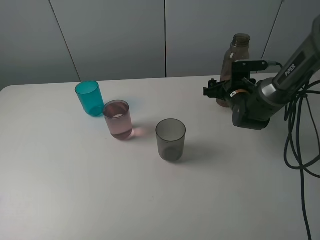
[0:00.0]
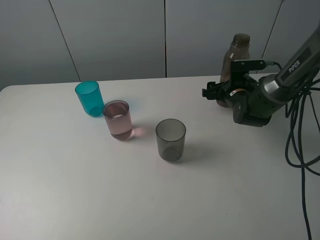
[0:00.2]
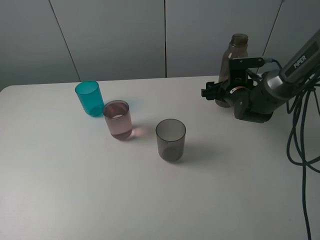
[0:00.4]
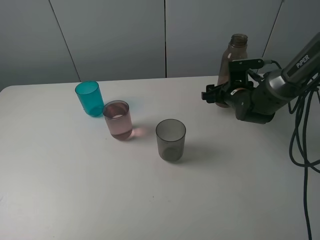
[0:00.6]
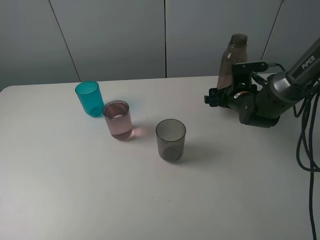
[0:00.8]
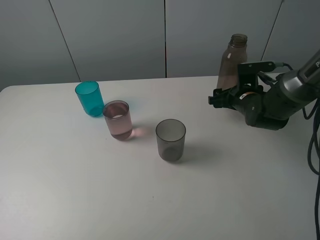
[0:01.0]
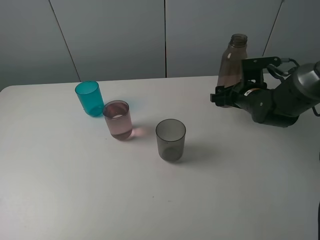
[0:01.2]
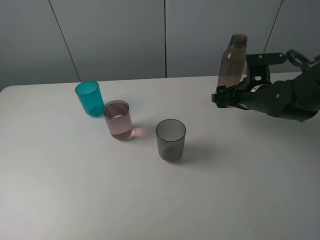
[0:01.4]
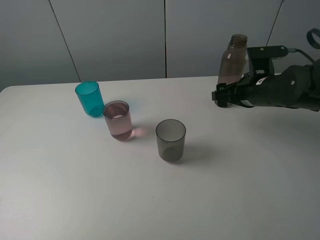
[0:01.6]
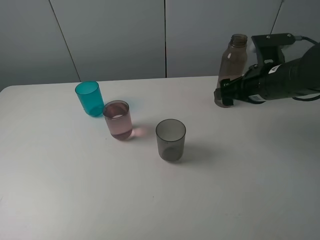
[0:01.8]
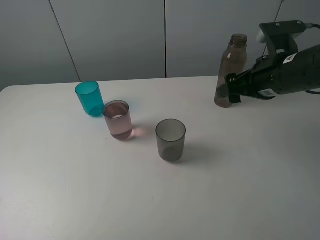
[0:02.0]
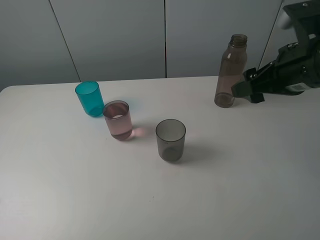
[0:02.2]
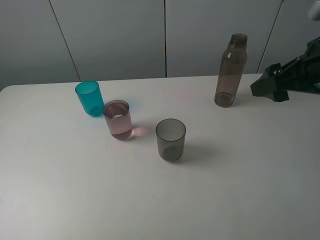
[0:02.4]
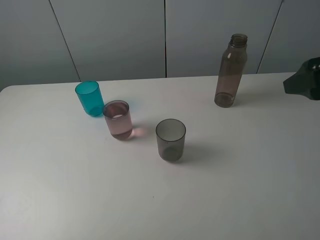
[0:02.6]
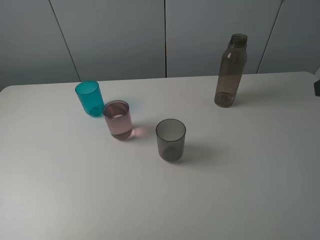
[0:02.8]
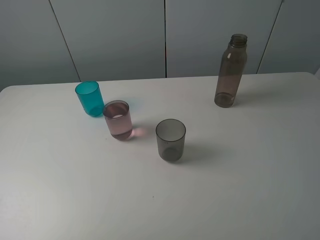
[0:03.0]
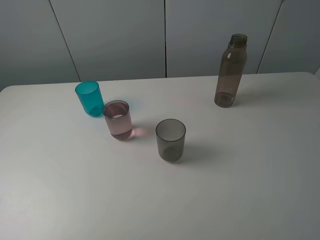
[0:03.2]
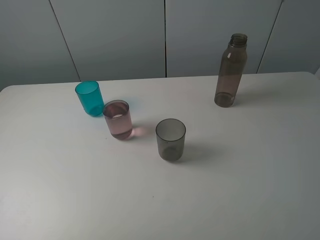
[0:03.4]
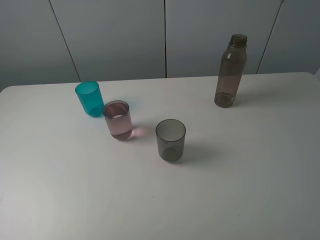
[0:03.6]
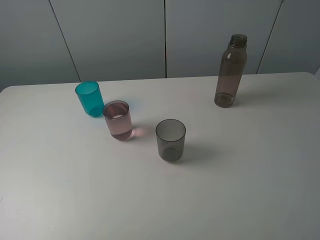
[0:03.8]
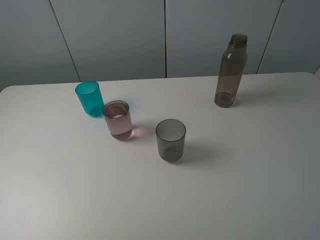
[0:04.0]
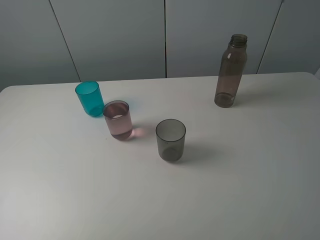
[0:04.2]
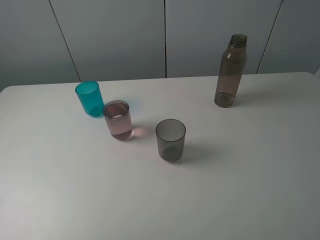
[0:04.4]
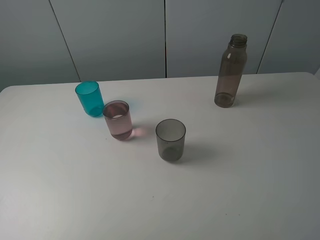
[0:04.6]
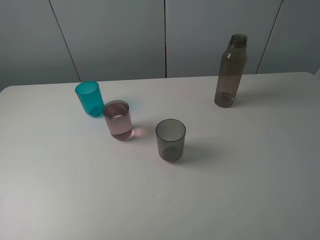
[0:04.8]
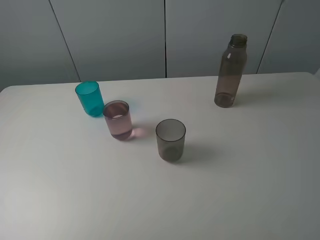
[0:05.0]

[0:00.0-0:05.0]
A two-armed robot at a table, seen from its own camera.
Task of the whole recording: pick up the bottle filled with water and pour water into the middle cup of the three cups.
0:00.0 to 0:01.6: The right gripper goes about 15 cm upward and backward.
0:01.6 to 0:03.4: The right gripper travels backward and upward by about 30 cm.

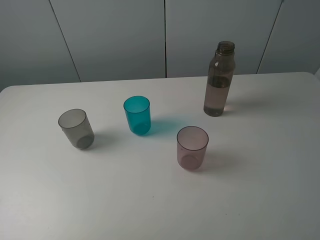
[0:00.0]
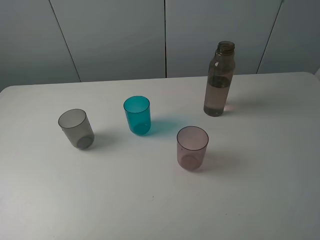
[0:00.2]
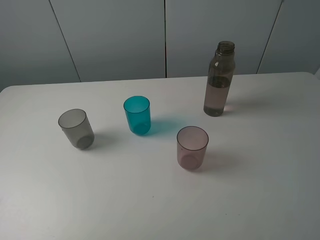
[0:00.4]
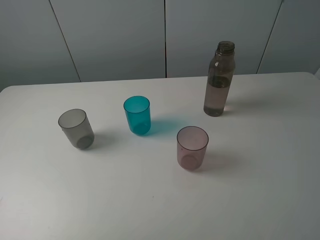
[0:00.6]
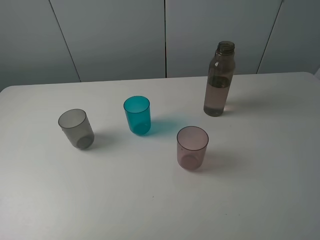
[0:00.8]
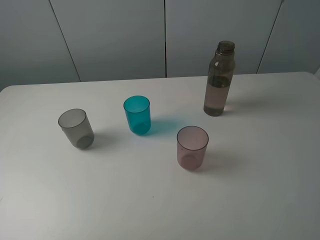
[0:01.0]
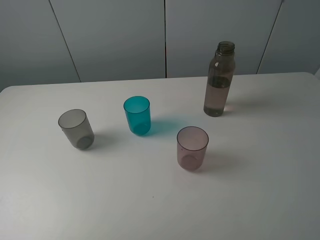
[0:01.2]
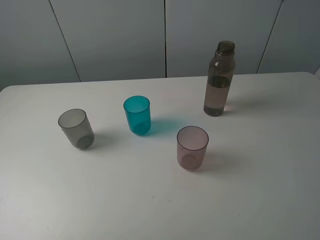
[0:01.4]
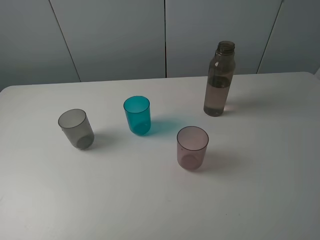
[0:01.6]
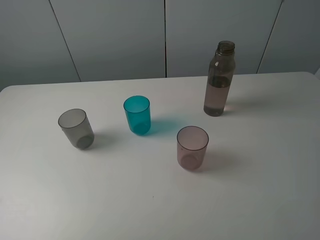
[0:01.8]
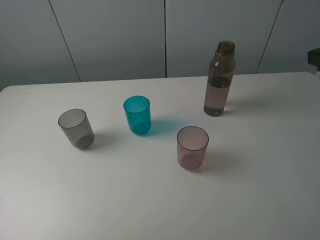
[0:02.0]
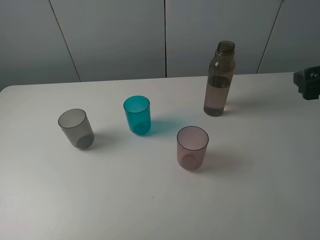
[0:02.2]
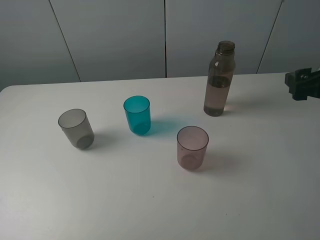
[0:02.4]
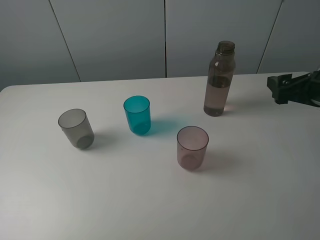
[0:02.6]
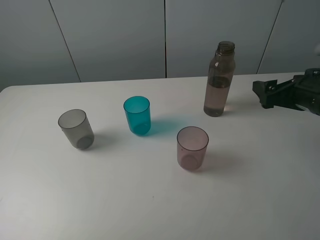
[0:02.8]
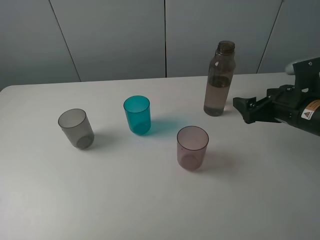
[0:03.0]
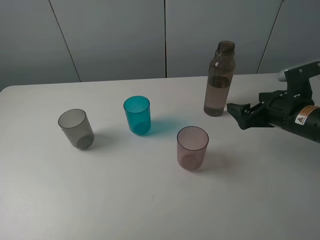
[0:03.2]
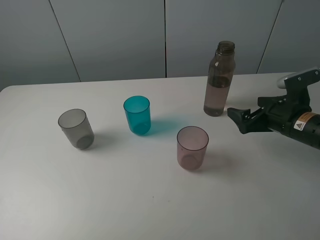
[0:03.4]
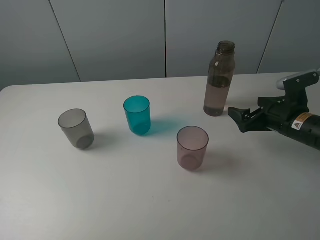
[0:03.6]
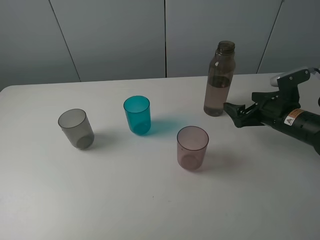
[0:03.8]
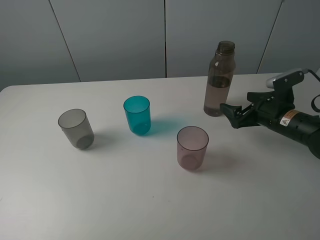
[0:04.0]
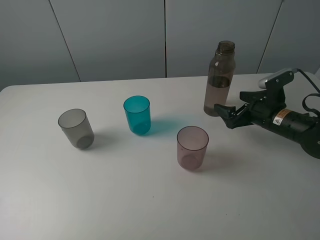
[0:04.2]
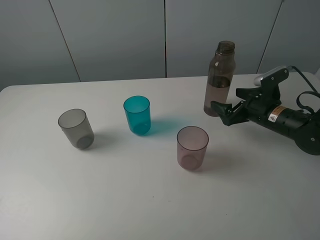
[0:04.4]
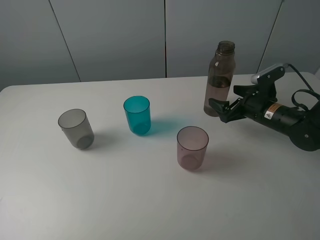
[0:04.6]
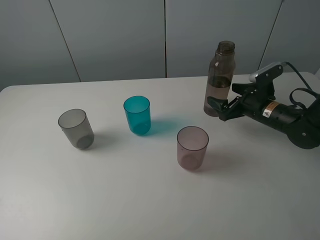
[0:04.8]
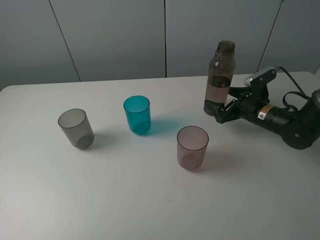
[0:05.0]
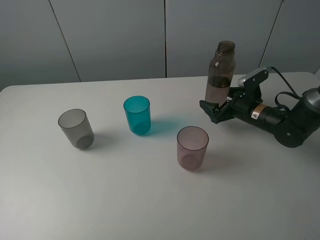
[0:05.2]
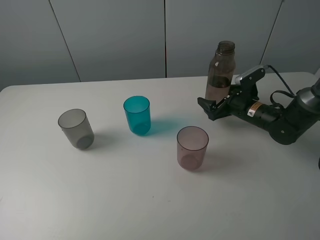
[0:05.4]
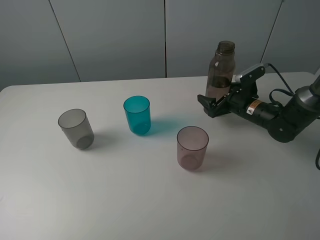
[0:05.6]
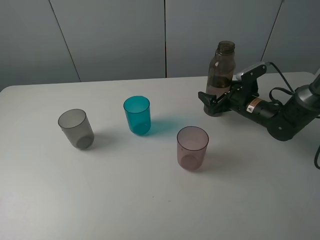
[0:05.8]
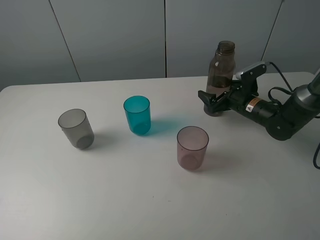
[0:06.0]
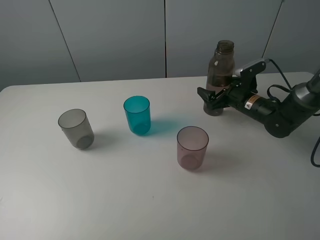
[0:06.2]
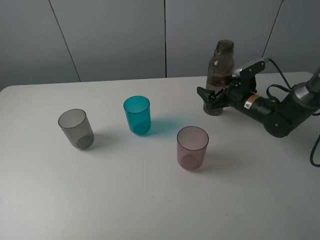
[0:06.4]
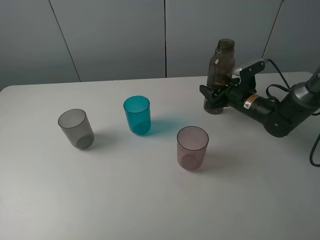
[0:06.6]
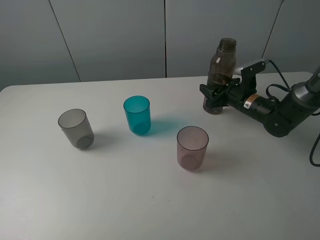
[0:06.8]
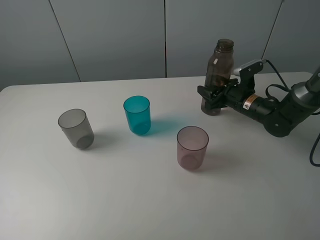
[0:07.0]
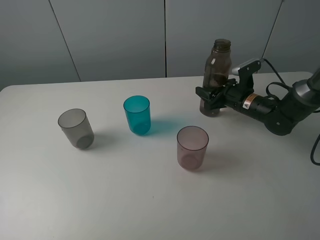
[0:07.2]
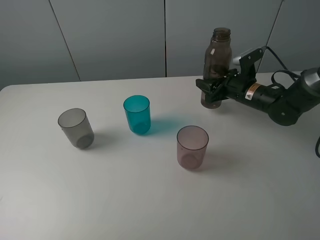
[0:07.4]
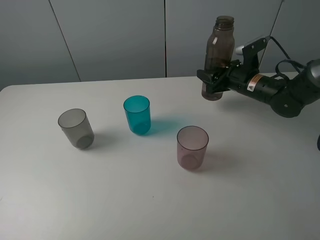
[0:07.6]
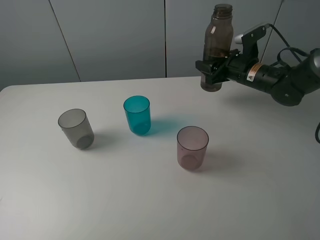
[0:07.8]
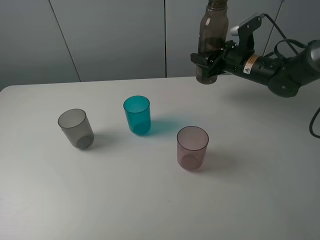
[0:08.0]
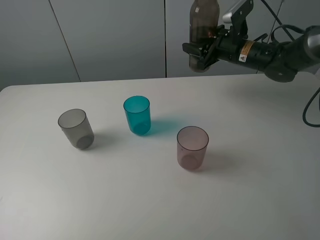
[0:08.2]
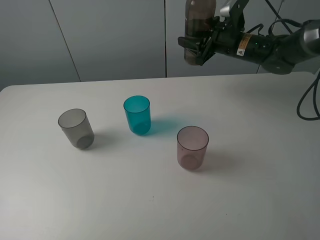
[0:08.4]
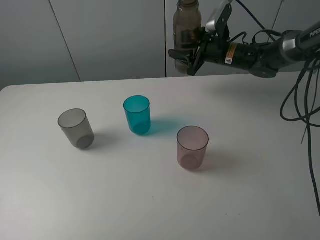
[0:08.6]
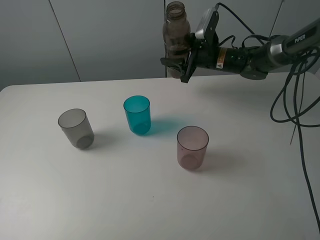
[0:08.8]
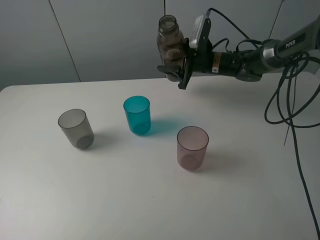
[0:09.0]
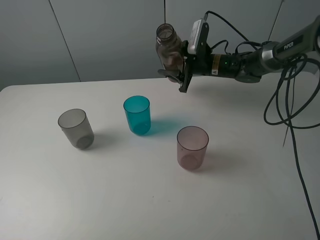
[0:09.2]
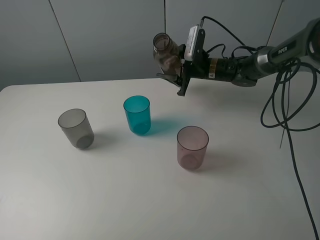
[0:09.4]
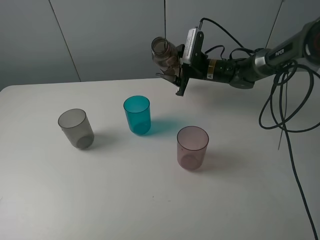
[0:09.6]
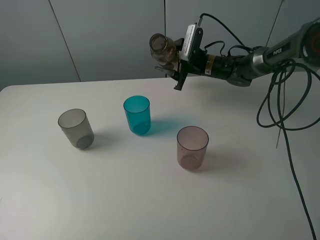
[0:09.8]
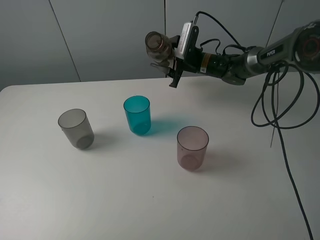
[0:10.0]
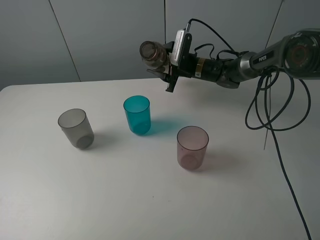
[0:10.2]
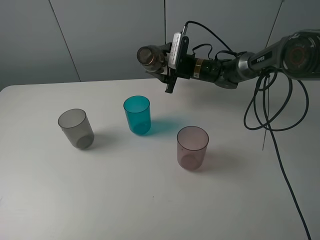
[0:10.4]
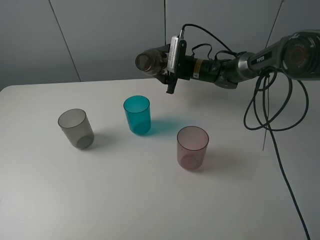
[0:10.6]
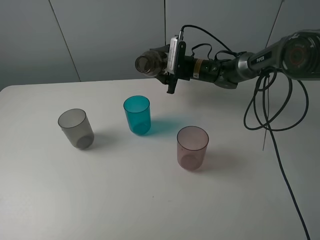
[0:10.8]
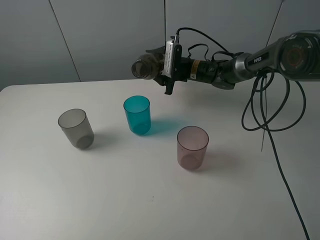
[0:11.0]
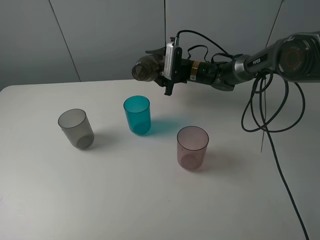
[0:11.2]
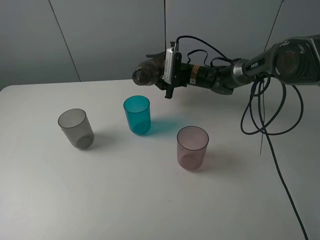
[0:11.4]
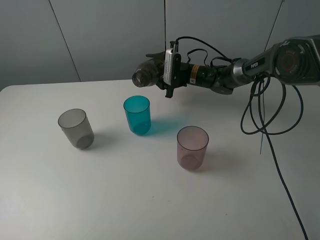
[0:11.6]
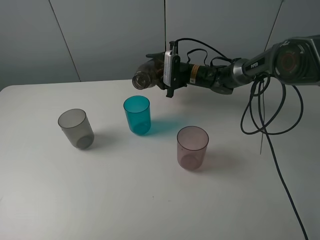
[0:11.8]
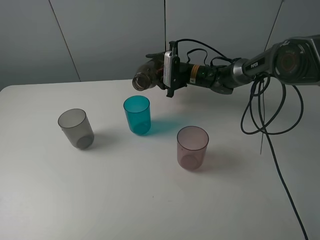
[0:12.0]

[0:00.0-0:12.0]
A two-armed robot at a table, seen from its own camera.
Task of the whole recording: pick up the bottle filled with water and pour water into the middle cup of the three cups.
Step, 0:00.0 to 0:06.8: Grasp the transparent bottle with the right gripper.
Step, 0:07.0 to 0:12.0: Pour water from transparent bottle to blue cup with the right gripper.
0:01.6 to 0:03.0: The right gripper moves downward and forward, about 25 cm, and opens.
0:03.0 to 0:04.4: The right gripper moves downward and forward, about 10 cm.
0:04.4 to 0:06.0: The right gripper goes about 5 cm forward.
0:06.0 to 0:07.6: The right gripper is displaced upward by some 5 cm, and closes up.
0:07.6 to 0:09.0: The right gripper goes some 10 cm to the left and forward.
0:09.0 to 0:10.4: The right gripper changes place by about 5 cm.

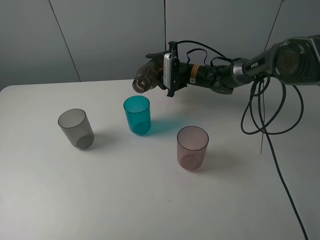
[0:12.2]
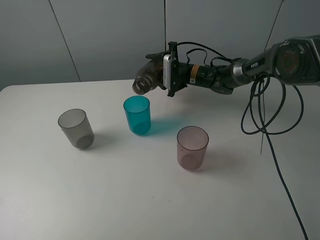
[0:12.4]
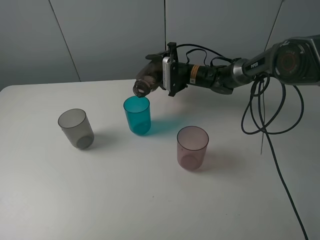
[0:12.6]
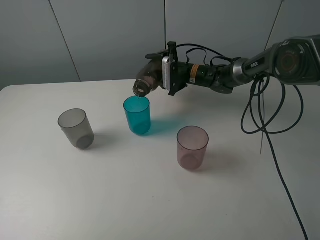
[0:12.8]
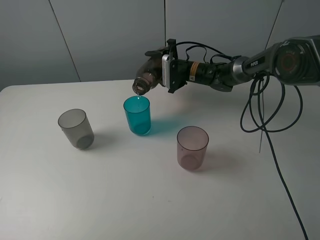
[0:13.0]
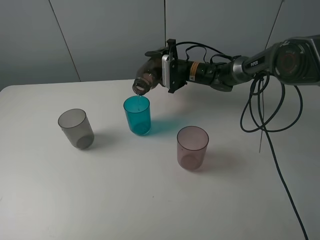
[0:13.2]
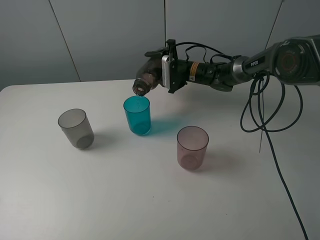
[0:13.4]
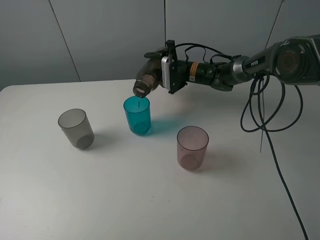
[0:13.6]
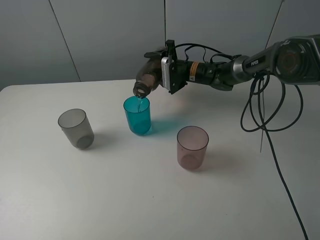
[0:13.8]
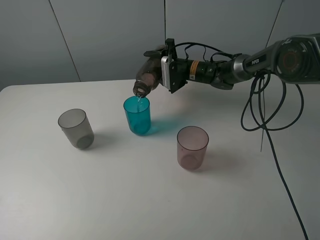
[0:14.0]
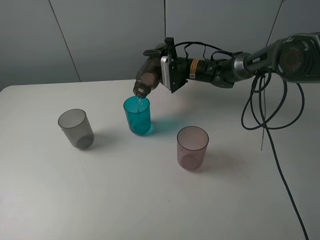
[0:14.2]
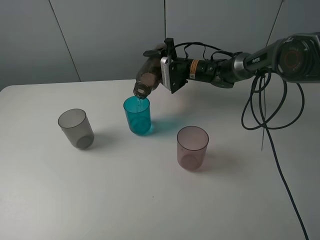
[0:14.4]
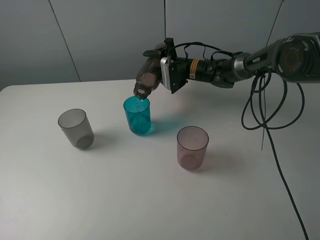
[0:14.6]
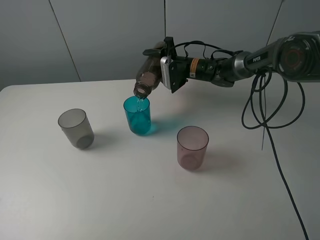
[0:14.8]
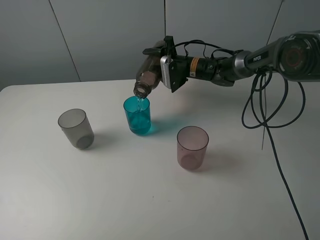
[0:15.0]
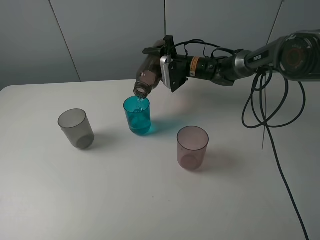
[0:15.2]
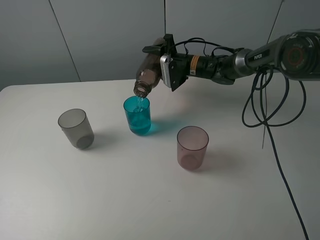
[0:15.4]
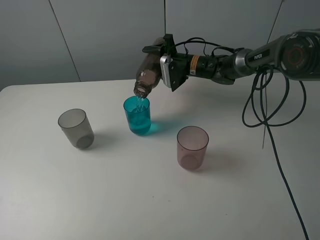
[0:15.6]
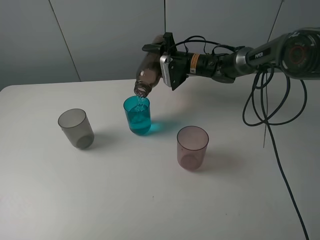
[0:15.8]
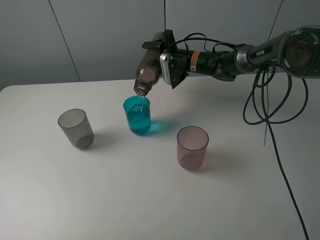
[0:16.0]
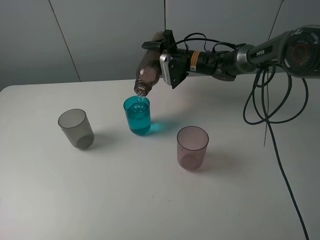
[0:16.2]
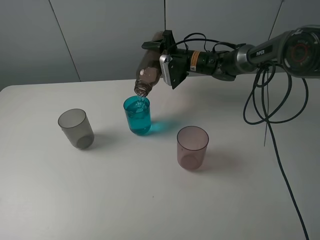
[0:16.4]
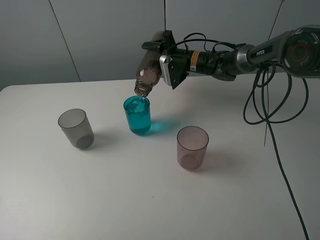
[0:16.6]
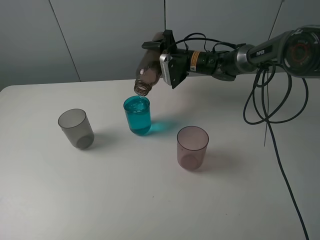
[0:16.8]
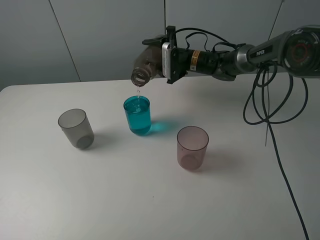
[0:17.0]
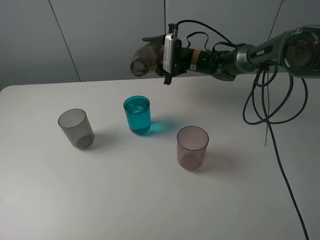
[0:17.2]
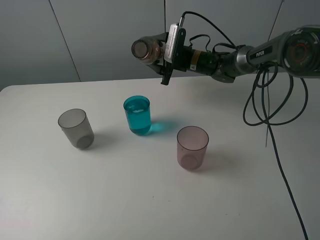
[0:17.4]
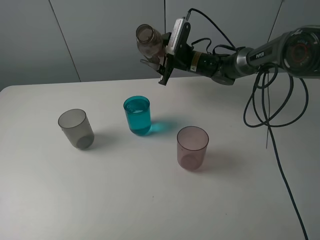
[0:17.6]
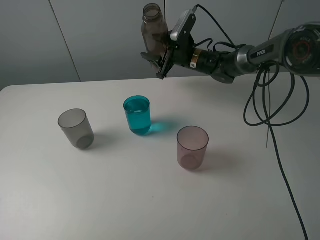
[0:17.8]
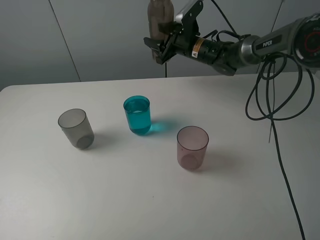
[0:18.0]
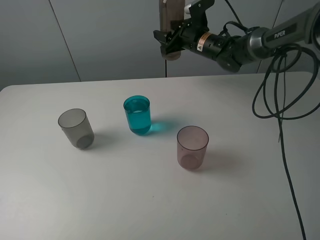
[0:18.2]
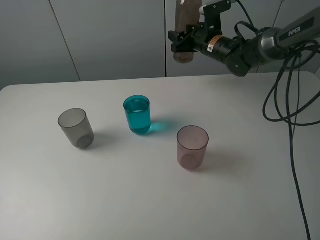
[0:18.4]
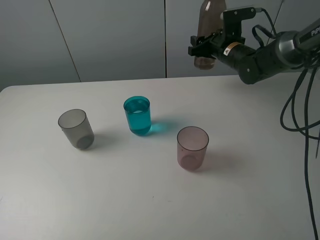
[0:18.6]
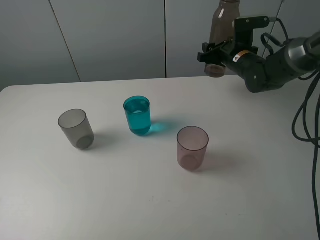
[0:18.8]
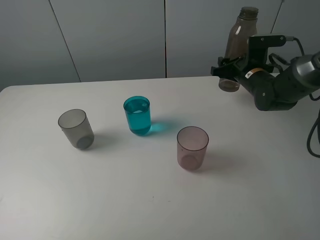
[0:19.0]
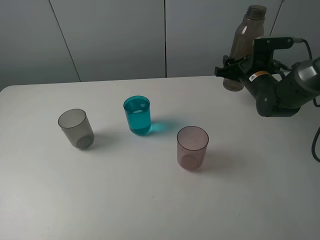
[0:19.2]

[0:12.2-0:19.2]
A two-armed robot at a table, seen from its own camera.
Task of the whole recording: pick up the bottle filled with water and pour water into the middle cup of the three cups.
0:12.2 to 0:15.0: There are only small adjustments of the grippers.
0:15.0 to 0:16.4: The grippers stay close to where they were, moving slightly.
0:17.8 to 0:19.2: The right gripper travels to the right and backward by about 15 cm.
